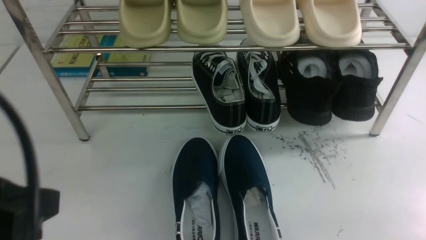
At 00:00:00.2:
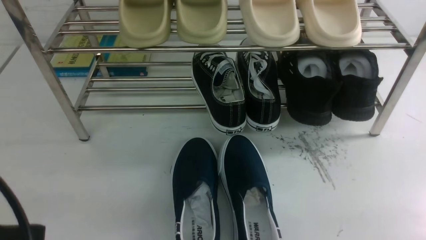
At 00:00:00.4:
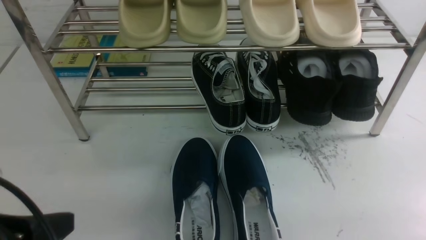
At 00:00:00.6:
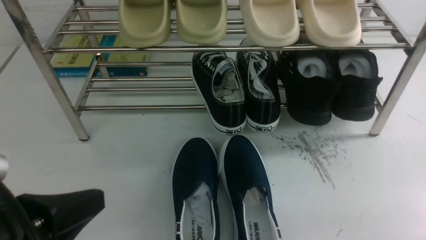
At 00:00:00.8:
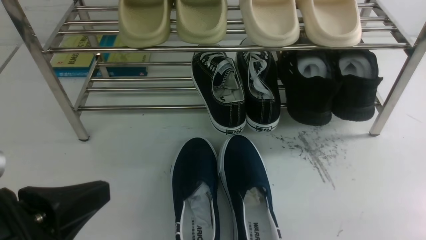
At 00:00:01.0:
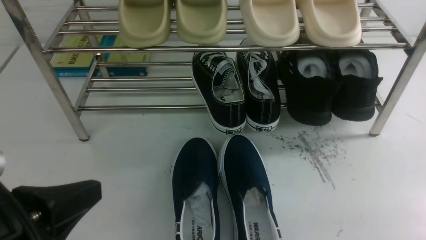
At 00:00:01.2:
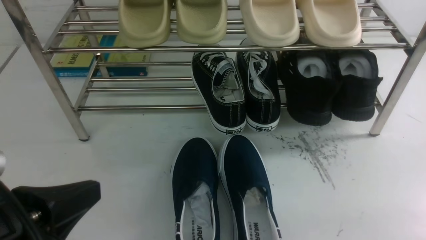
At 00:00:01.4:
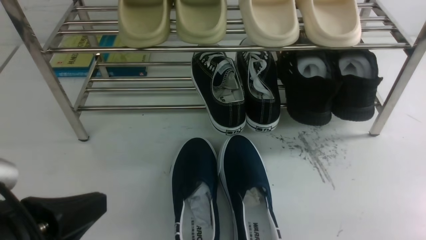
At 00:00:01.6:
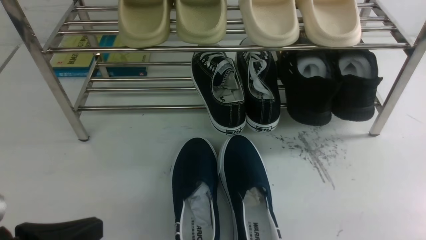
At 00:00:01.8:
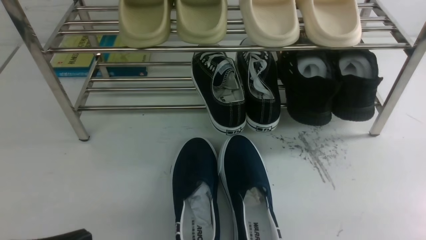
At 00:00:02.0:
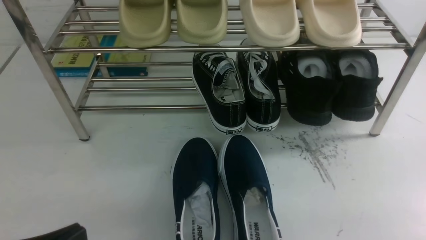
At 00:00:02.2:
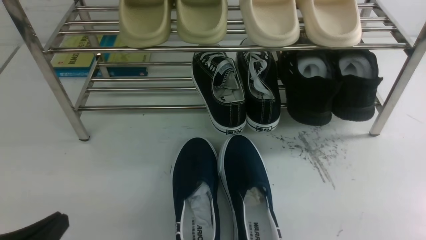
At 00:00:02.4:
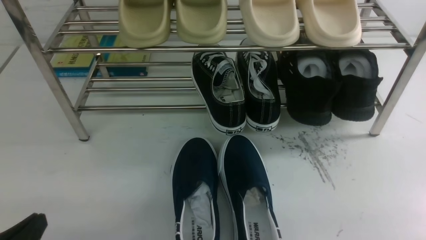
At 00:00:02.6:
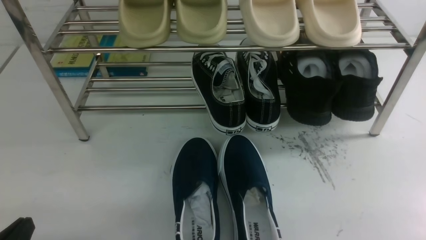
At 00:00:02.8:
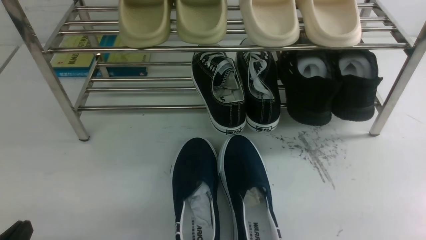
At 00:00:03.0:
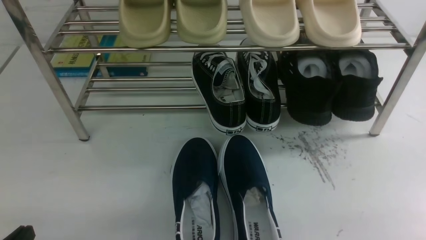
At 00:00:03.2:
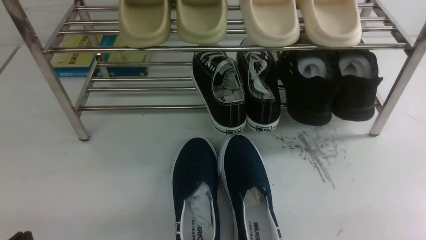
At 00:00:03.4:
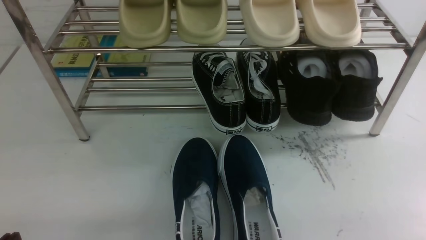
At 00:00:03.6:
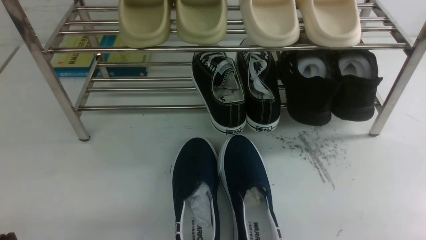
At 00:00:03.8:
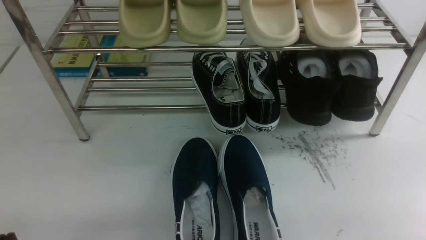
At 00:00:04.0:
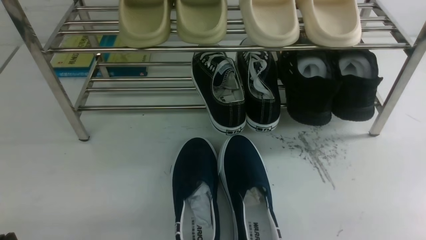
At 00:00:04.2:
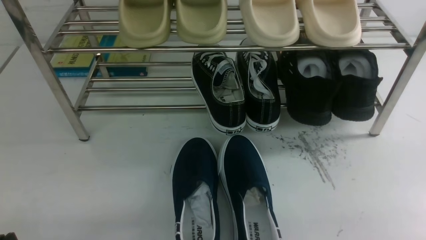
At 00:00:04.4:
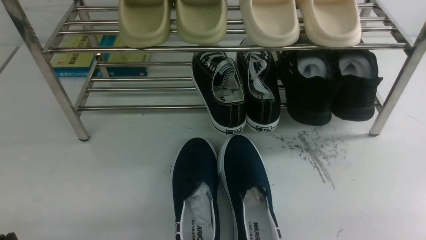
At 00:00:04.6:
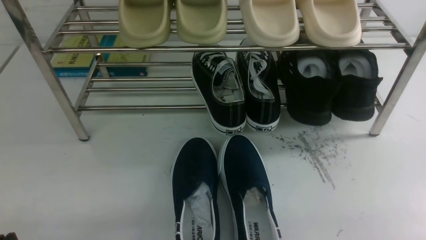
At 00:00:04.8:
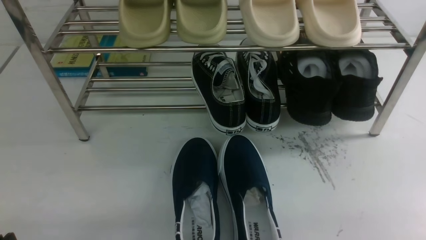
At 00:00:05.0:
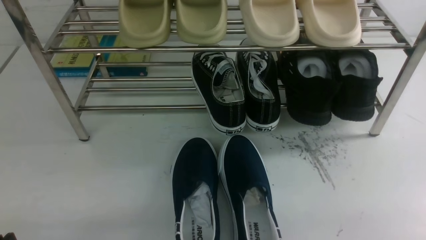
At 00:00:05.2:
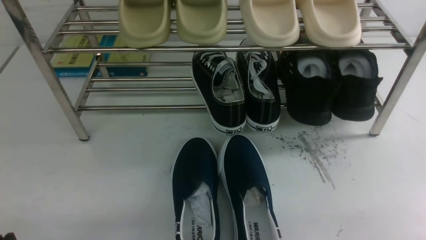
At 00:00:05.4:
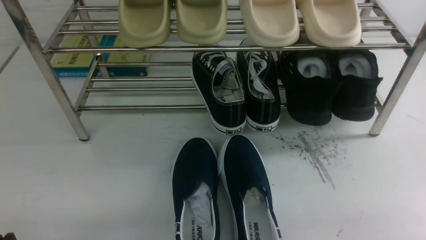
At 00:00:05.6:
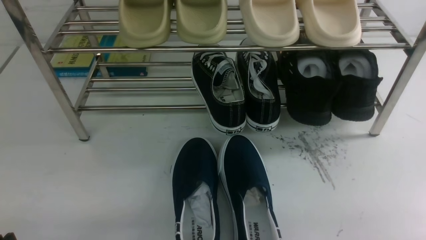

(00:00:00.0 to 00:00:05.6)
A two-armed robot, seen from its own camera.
00:00:00.0 - 00:00:01.4: The left gripper is displaced downward by some 5 cm.
00:00:01.4 - 00:00:02.8: The left gripper moves downward and to the left, some 15 cm.
00:00:04.2 - 00:00:05.6: Neither gripper changes place.

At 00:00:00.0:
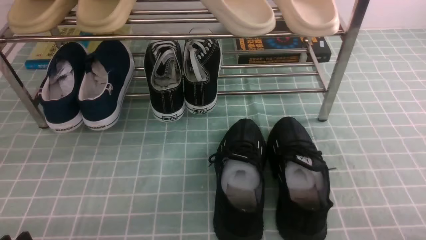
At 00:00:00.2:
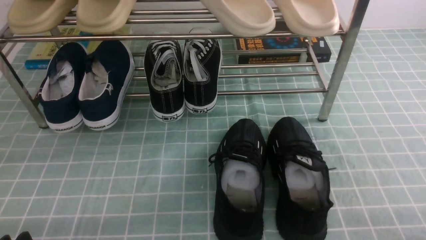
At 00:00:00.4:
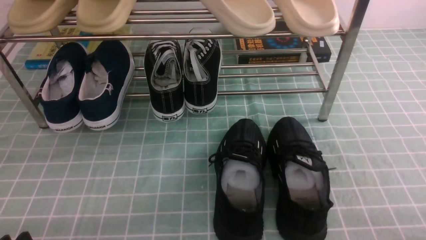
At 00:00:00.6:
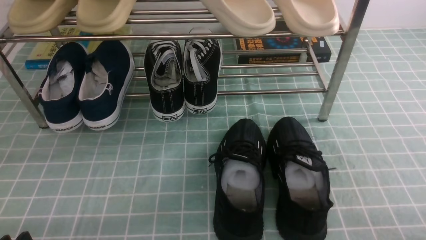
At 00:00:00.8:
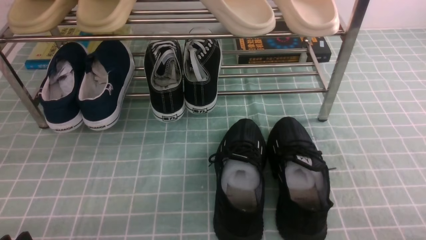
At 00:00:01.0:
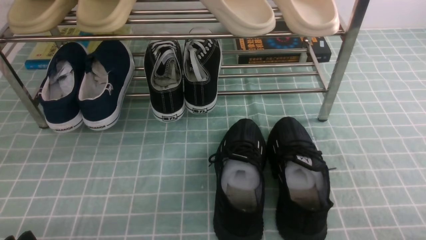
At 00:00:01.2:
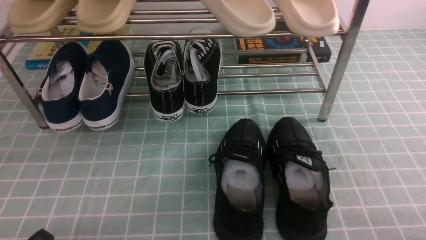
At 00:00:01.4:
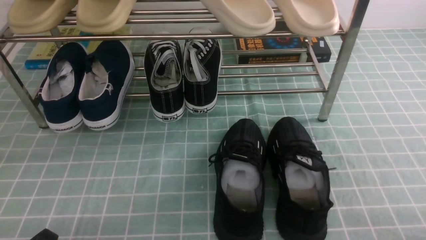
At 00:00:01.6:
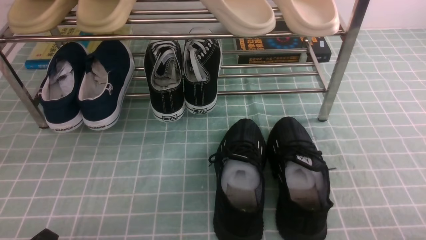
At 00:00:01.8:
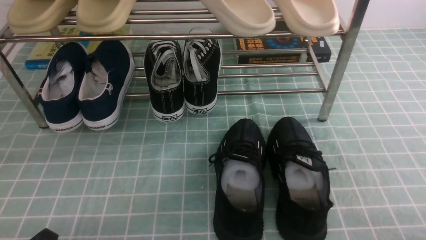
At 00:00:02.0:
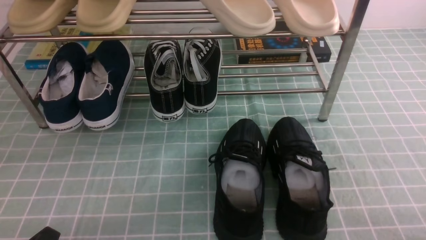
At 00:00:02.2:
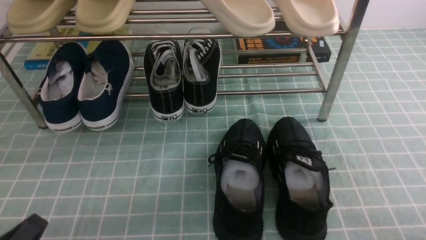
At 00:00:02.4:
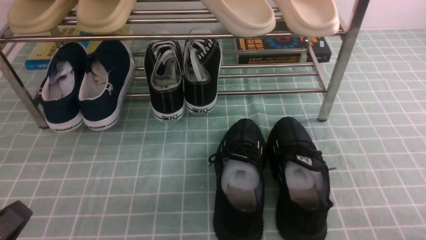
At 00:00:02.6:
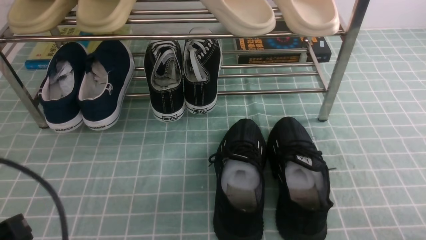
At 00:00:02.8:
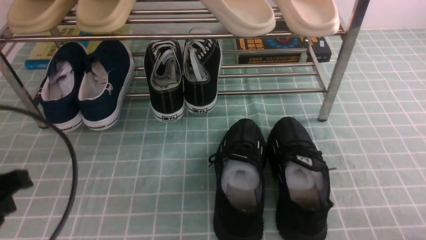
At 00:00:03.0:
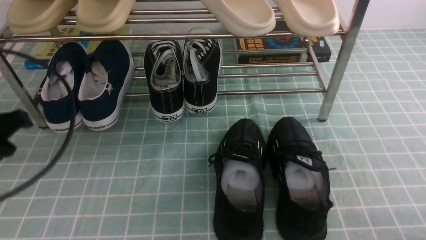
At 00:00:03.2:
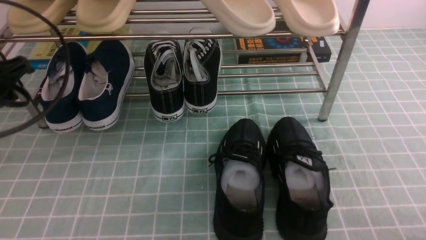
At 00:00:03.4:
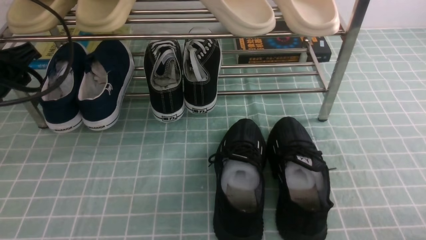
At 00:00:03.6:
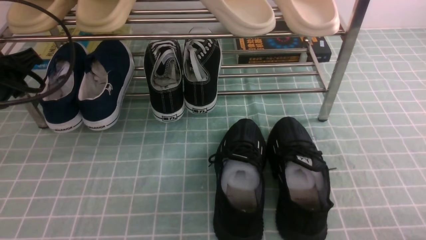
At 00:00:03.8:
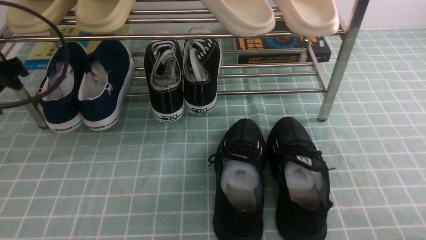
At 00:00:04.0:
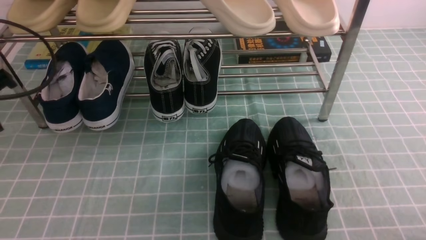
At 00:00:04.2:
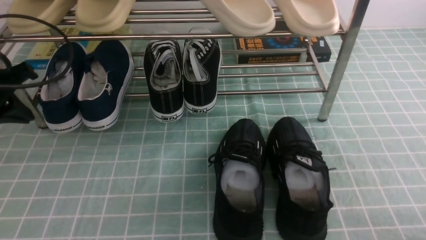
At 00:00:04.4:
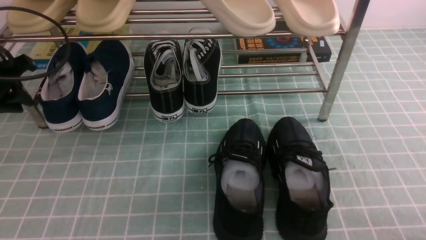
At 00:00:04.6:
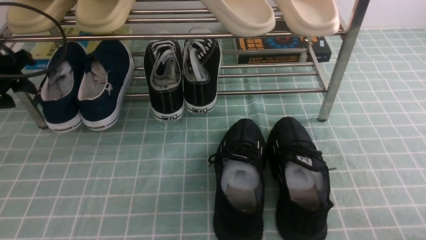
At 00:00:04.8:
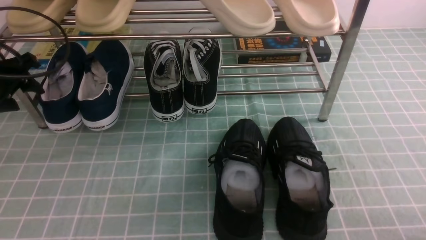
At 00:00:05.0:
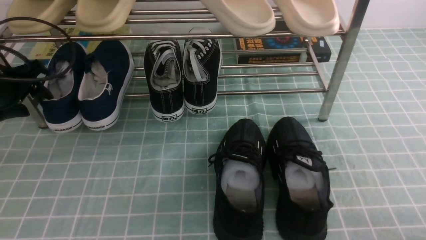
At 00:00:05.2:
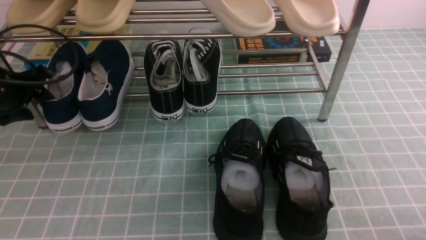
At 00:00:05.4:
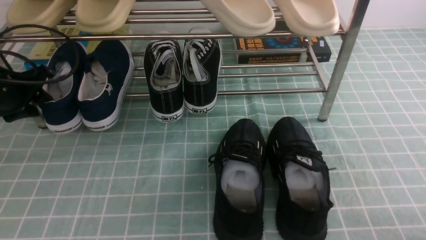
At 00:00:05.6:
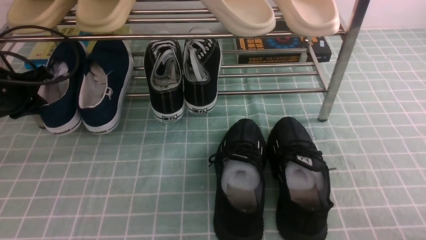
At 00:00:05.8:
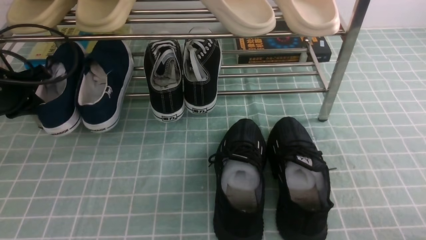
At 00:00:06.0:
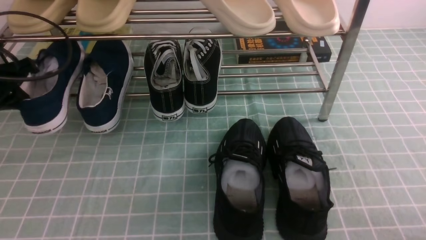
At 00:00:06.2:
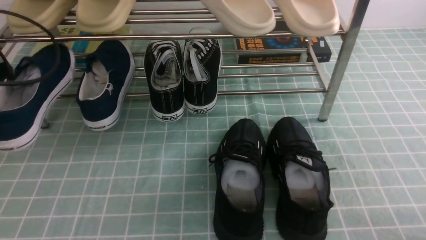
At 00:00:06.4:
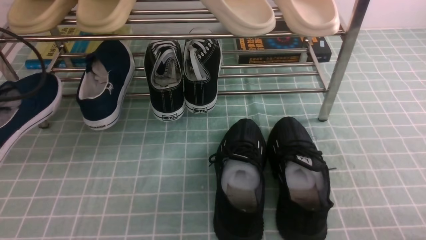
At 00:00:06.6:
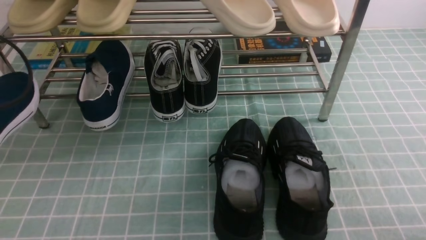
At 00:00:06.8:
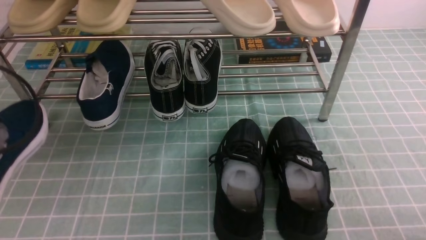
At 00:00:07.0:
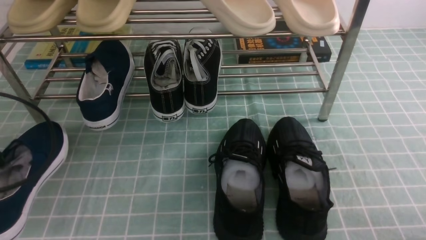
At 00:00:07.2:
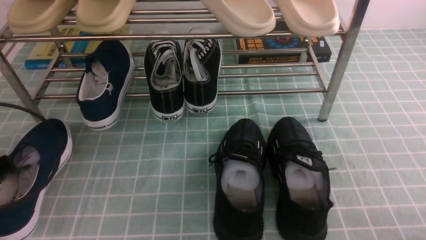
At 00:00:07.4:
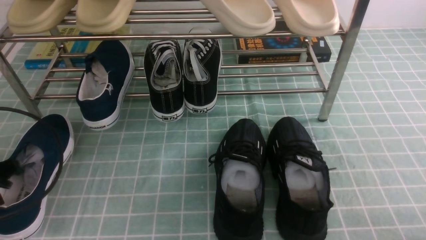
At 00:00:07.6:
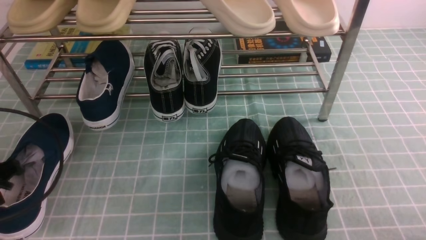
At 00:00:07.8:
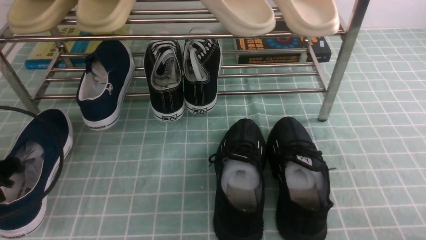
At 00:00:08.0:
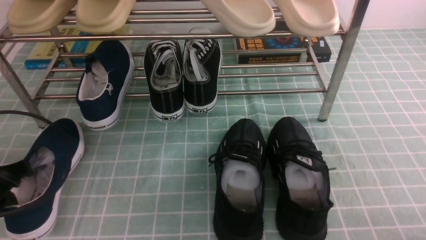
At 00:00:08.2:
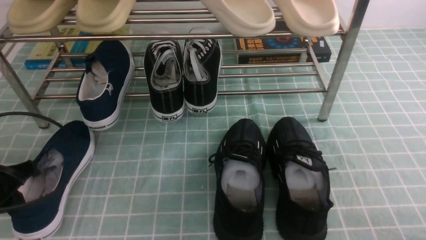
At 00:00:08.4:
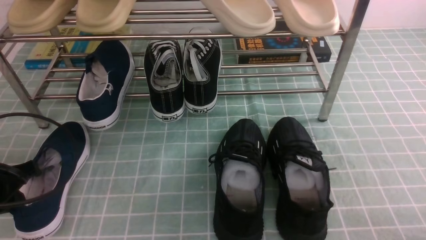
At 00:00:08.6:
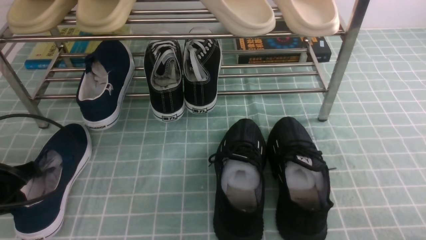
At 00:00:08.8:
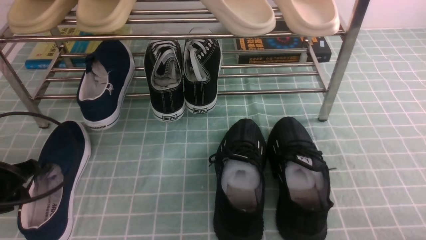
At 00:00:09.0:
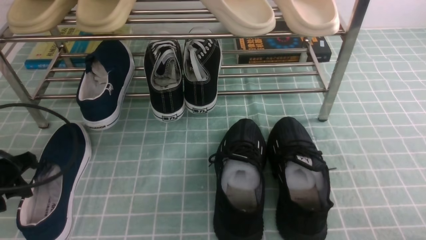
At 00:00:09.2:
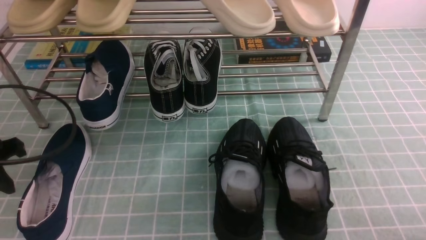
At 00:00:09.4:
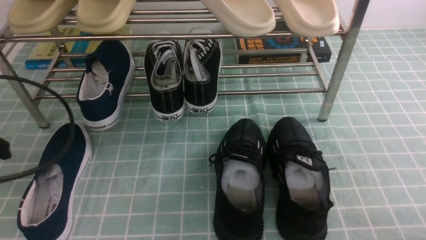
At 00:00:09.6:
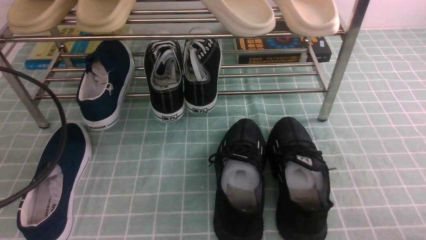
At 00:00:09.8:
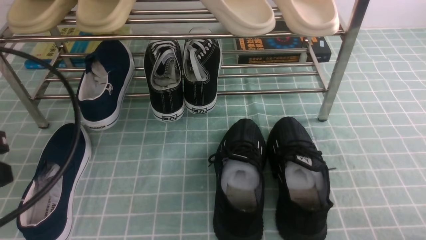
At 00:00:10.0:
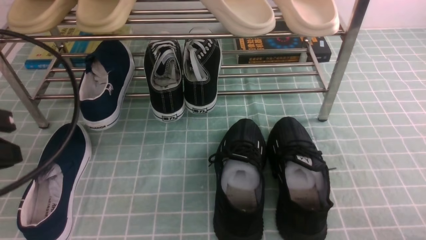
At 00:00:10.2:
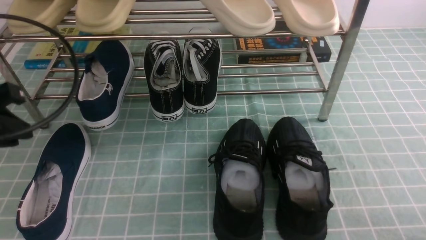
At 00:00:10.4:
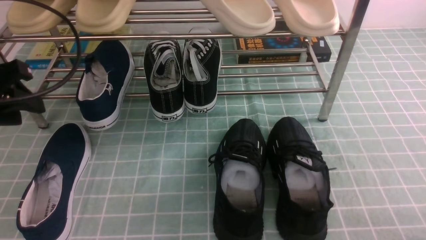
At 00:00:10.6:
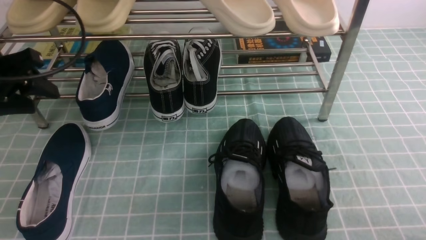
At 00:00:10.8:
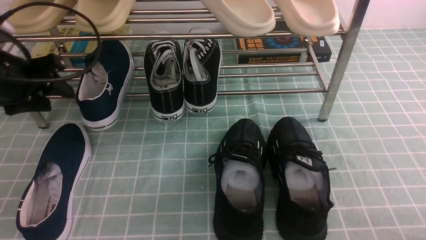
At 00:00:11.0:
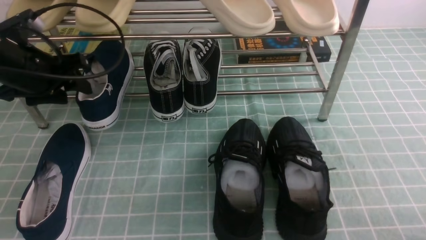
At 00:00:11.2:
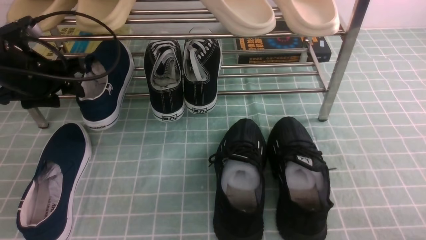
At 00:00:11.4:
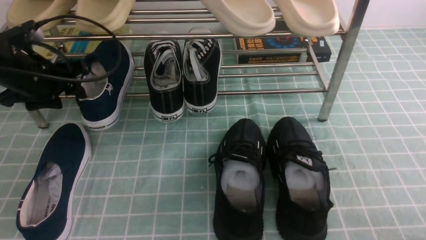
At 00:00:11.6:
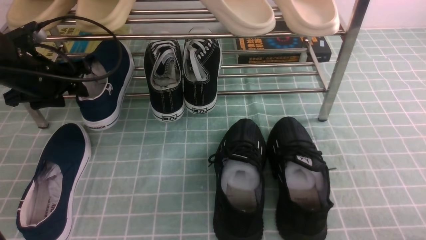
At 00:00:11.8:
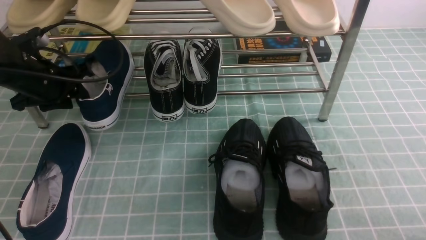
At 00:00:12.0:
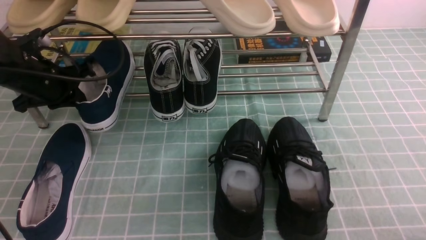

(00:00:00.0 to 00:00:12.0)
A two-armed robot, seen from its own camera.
Step, 00:00:00.0 - 00:00:05.8: use the left arm to clamp a shoe on the left side of the shoe rack.
Step, 00:00:06.0 - 00:00:09.0: Use your left arm to remove the clamped shoe from the shoe rack and put it down.
Step, 00:00:09.2 - 00:00:11.8: use the left arm to clamp a shoe on the left side of the shoe rack.
00:00:01.6 - 00:00:03.0: The left gripper heads upward and forward, covering approximately 20 cm.
00:00:03.0 - 00:00:04.4: The left gripper shifts some 15 cm forward and to the left.
00:00:04.4 - 00:00:06.0: The left gripper closes its fingers.
00:00:06.0 - 00:00:07.6: The left gripper is displaced backward by approximately 15 cm.
00:00:07.6 - 00:00:09.0: The left gripper opens its fingers.
00:00:09.0 - 00:00:10.4: The left gripper heads upward, covering roughly 10 cm, and closes, then reopens.
00:00:10.4 - 00:00:12.0: The left gripper heads forward and downward, covering some 15 cm, and closes its fingers.
